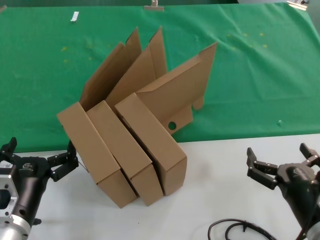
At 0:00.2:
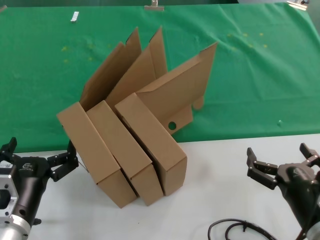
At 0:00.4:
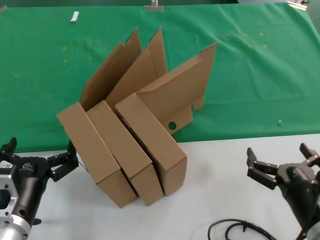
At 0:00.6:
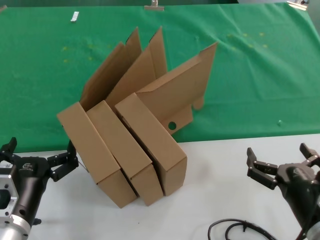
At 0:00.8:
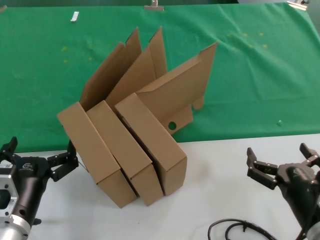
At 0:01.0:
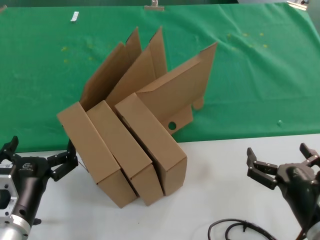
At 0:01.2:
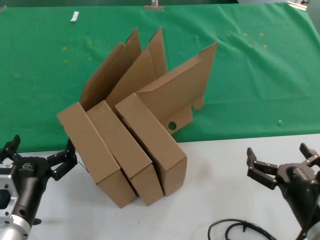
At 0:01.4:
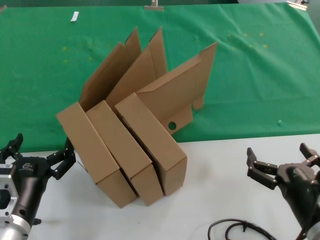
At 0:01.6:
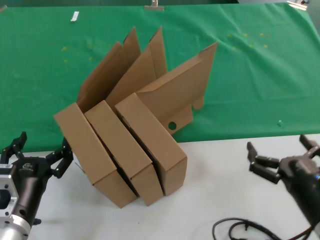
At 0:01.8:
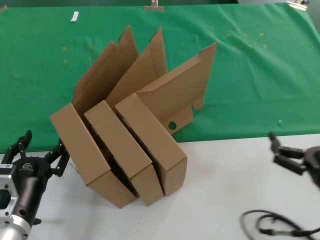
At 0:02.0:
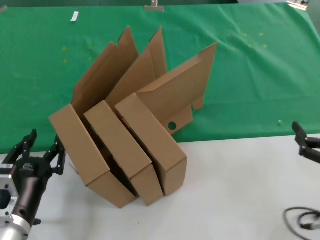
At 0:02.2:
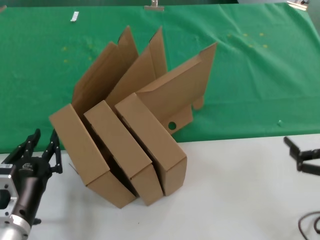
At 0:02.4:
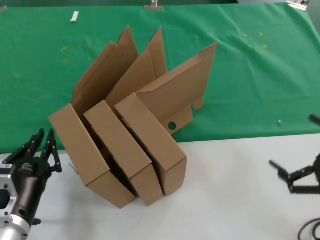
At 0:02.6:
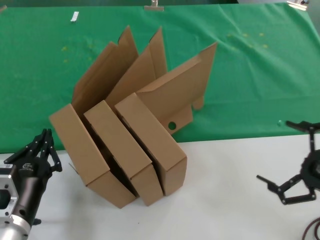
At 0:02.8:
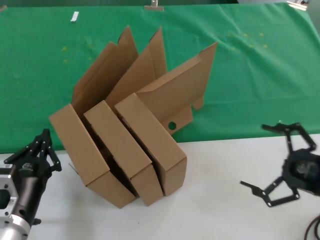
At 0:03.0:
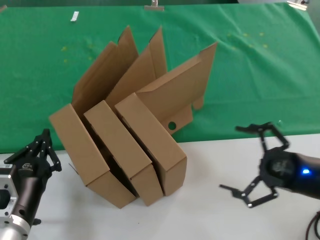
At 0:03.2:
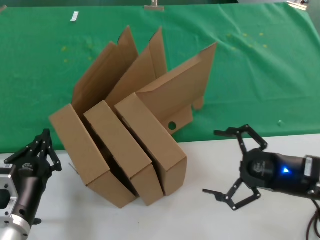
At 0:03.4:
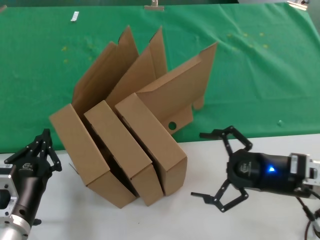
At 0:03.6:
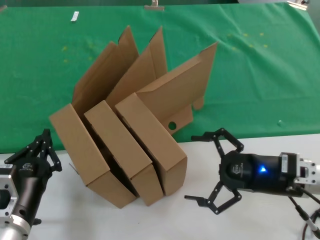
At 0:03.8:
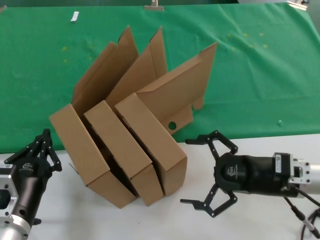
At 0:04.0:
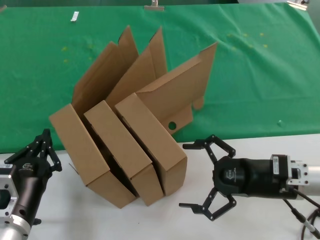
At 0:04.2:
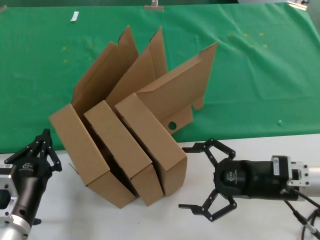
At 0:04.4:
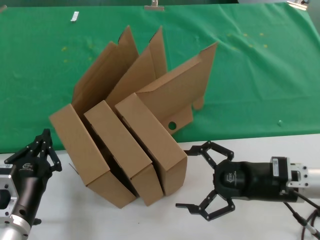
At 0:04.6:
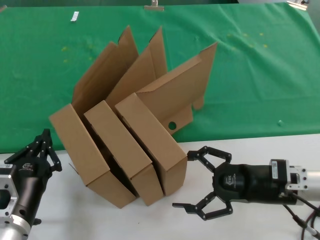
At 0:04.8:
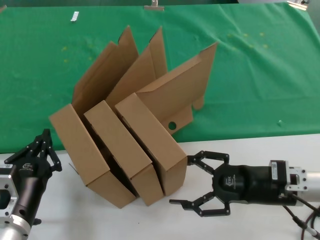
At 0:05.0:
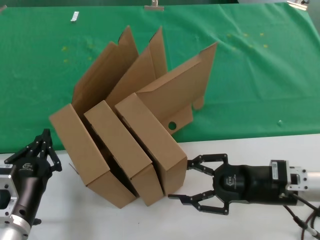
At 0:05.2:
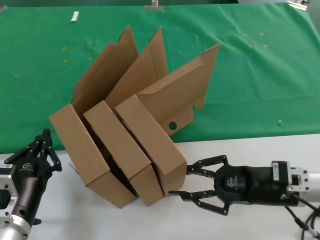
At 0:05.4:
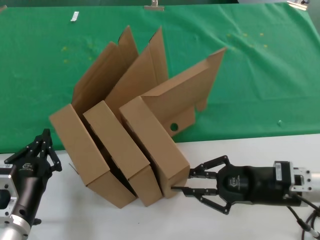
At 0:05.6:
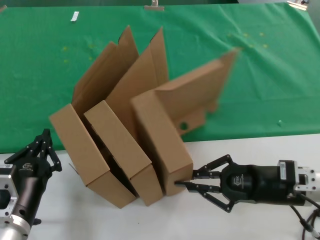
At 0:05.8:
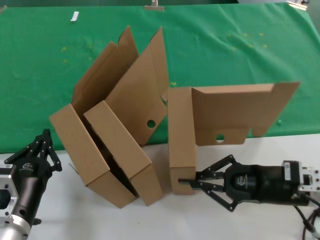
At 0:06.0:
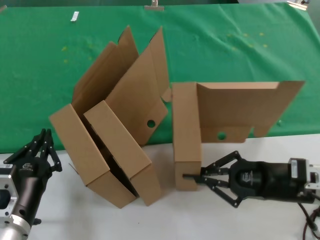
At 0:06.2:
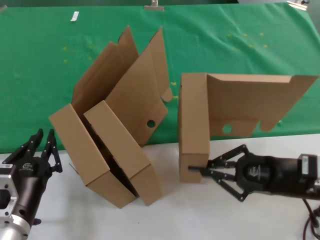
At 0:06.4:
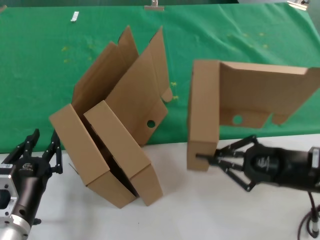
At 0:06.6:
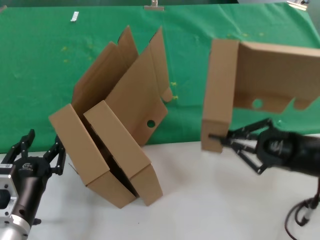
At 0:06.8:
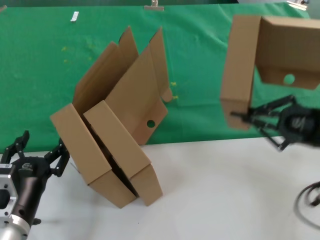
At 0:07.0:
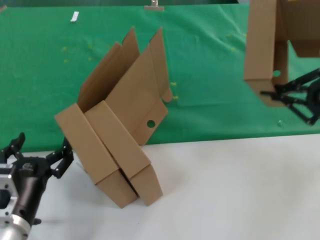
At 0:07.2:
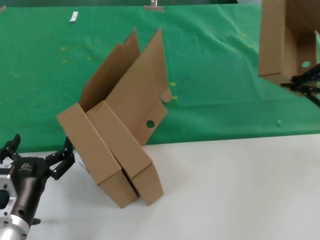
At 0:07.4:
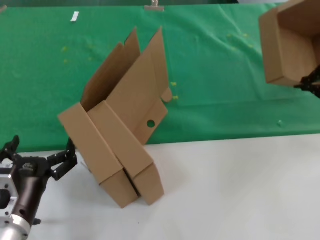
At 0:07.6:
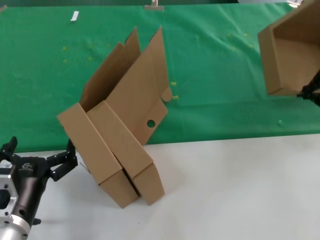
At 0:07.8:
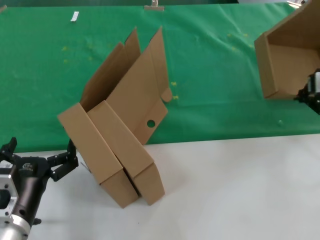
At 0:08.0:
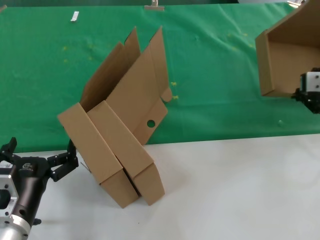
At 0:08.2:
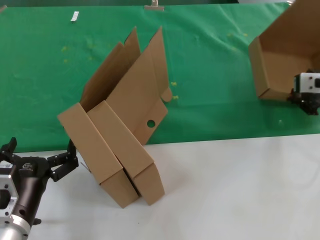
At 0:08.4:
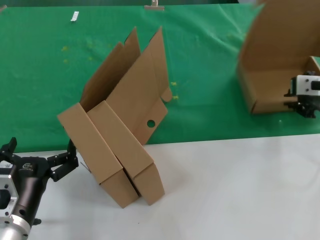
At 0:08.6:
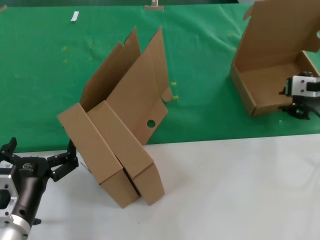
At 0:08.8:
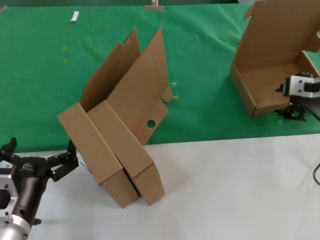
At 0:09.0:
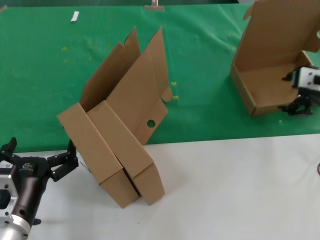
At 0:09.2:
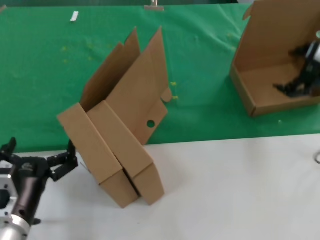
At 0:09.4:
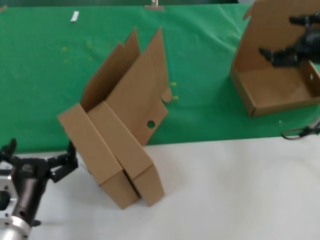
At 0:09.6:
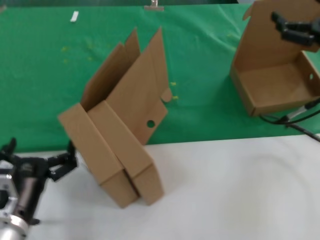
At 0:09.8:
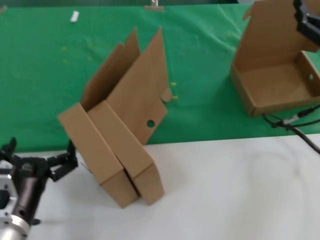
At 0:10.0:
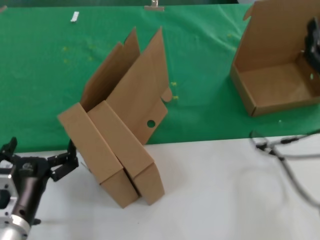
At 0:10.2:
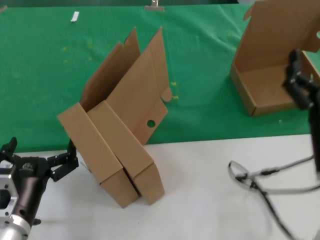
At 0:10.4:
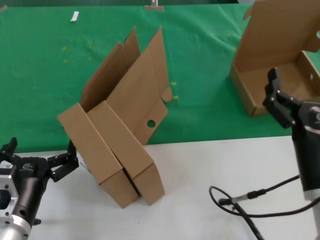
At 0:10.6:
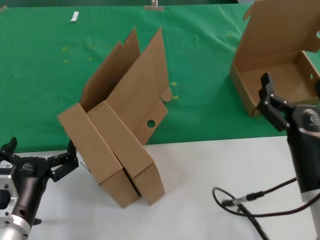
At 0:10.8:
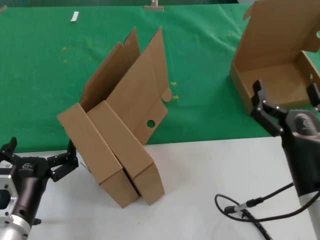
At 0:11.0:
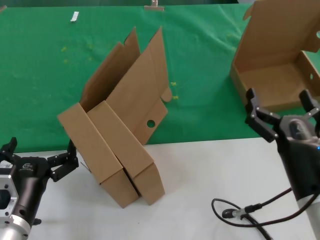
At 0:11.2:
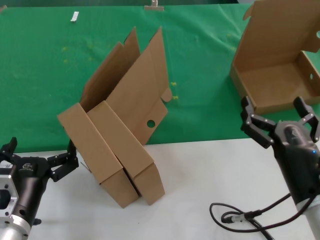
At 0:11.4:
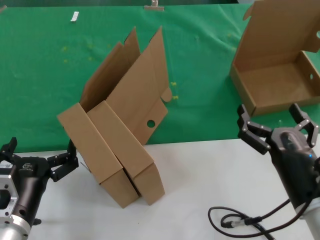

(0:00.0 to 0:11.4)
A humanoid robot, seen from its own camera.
Task of the whole recording: pick up the paper box and put it at the back.
Step, 0:00.0 - 0:05.6: Grasp the paper box.
Step, 0:05.8 - 0:08.4: Place the paper box on the table.
0:00.0 - 0:01.4: Neither hand changes place.
0:01.4 - 0:02.8: The right hand moves to the right and forward, about 15 cm.
0:02.8 - 0:04.2: The right hand heads to the left and forward, covering about 15 cm.
0:04.2 - 0:05.6: The hands make only small movements.
0:05.6 - 0:07.2: The right hand shifts approximately 25 cm upward and to the right.
0:07.2 - 0:08.6: The right hand shifts approximately 10 cm to the left and forward.
0:08.6 - 0:10.0: The right hand shifts about 15 cm downward and backward.
0:10.0 - 0:11.4: The right hand moves backward, to the left and downward, roughly 15 cm.
